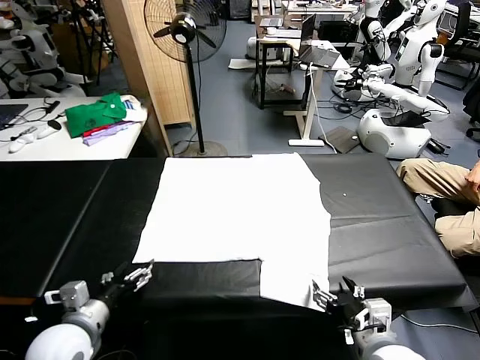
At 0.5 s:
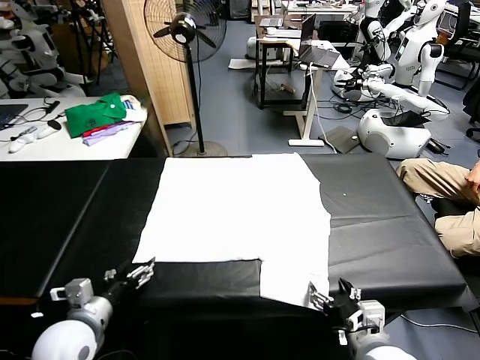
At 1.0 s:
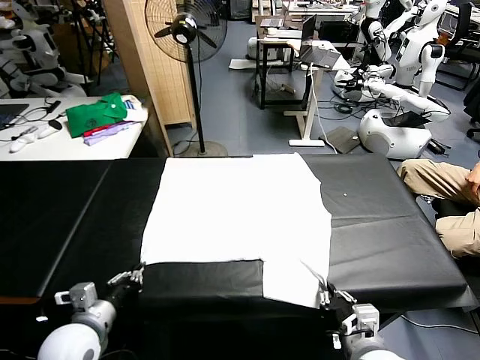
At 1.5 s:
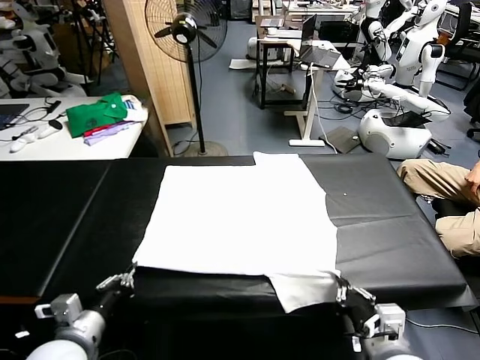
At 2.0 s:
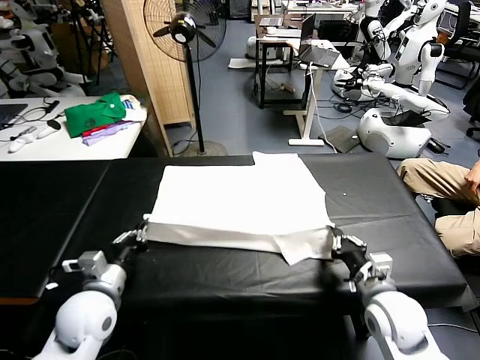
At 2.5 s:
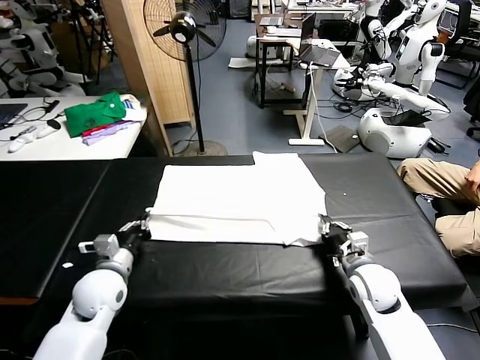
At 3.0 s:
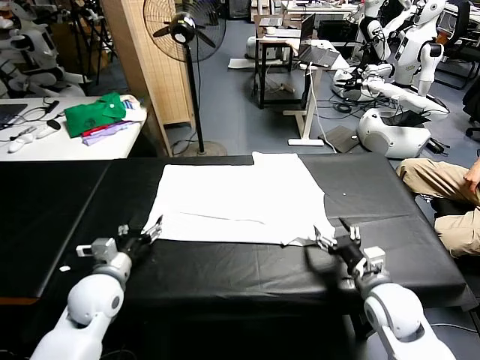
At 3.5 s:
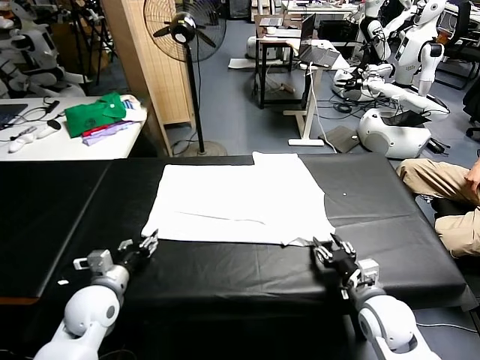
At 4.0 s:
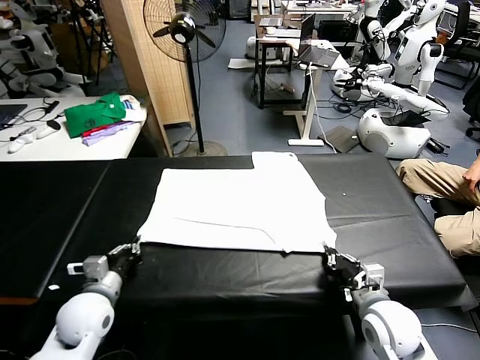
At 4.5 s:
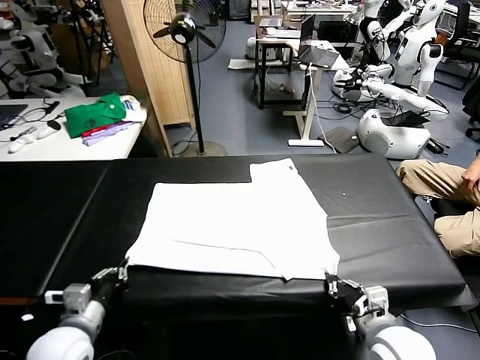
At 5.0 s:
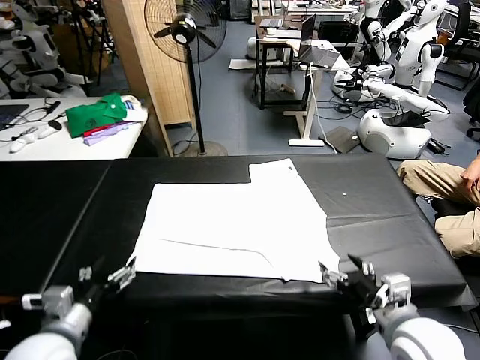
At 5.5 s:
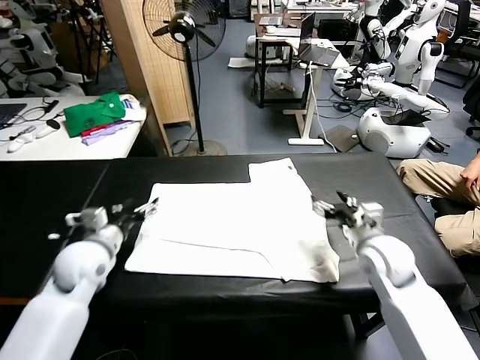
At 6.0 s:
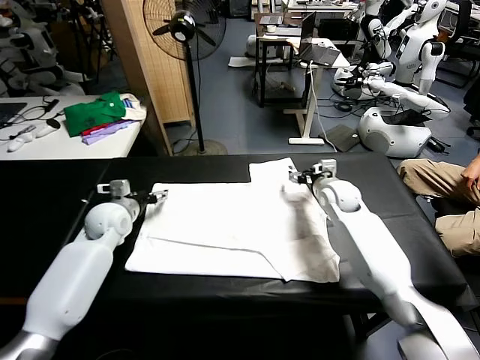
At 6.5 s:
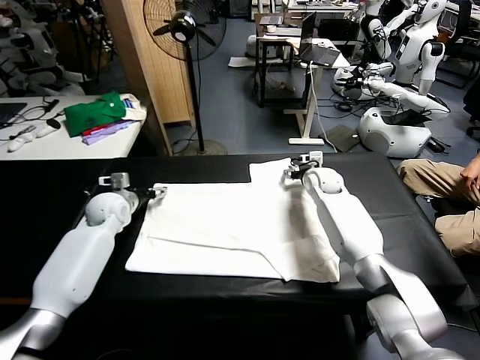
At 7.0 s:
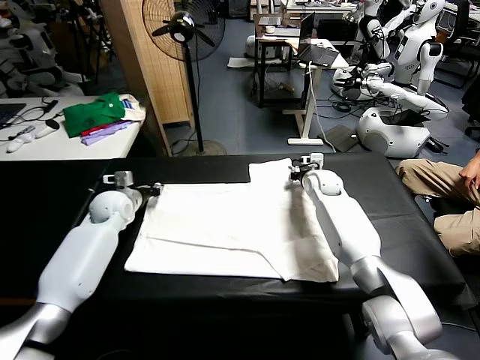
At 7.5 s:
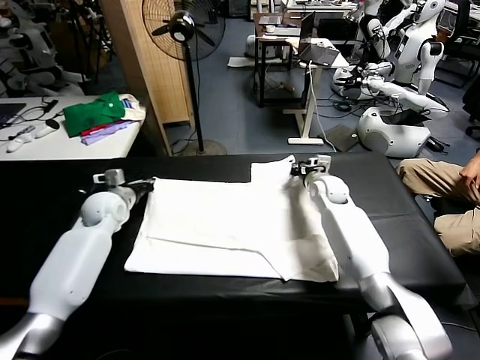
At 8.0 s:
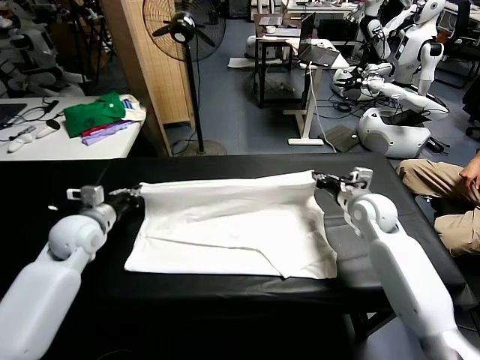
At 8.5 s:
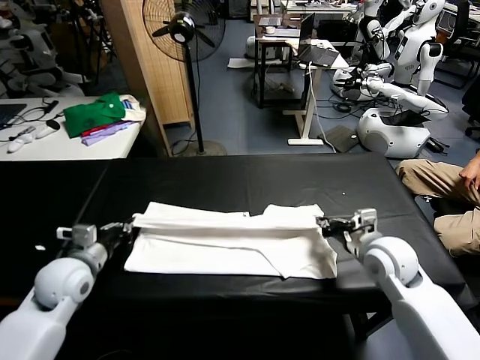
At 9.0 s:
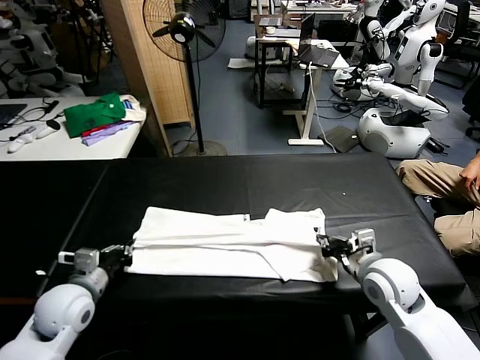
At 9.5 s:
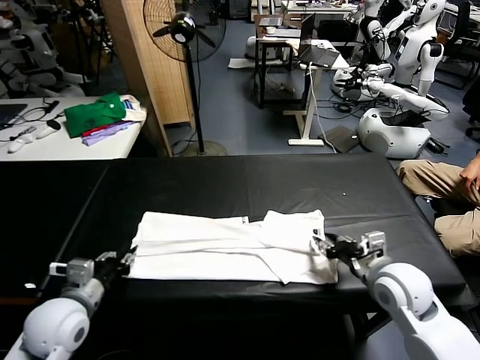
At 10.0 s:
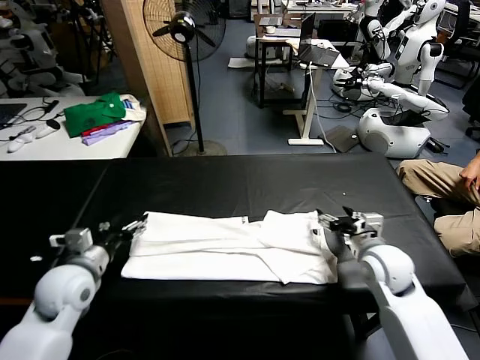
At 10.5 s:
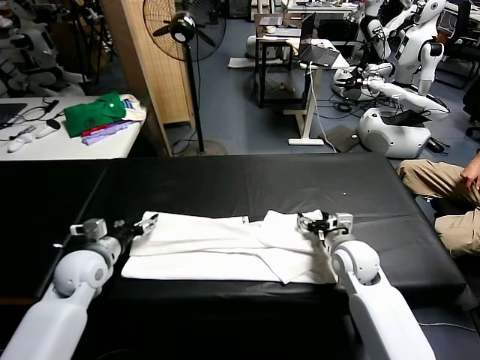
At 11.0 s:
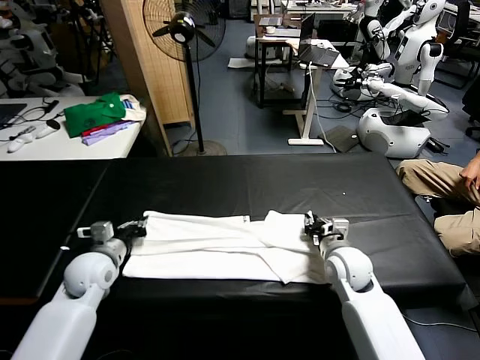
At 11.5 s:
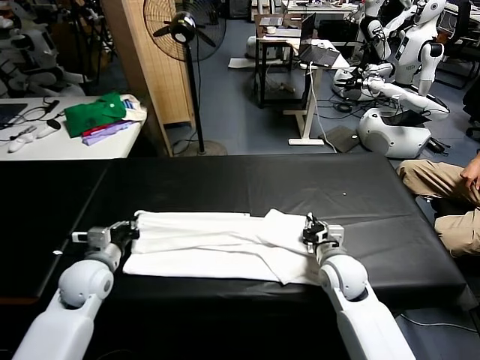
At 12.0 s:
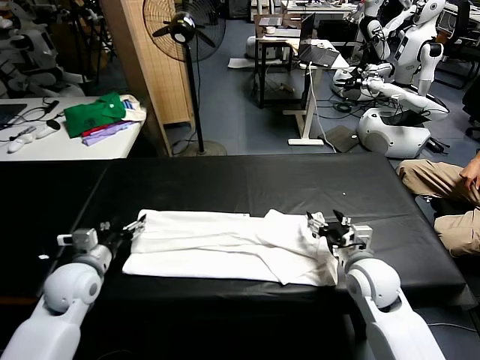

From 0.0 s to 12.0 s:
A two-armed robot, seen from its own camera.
Task of the whole recording: fold and organize the clothes.
Step, from 0.0 s to 1.0 s: use both grippers simultaneously to clamp the lower edge of the clothing fabric.
Step, from 1.5 s to 2.5 s: use both grippers to drag the lower edge of the fabric forward and fold it over the upper edge.
Step, from 3.0 s to 4.5 s: Drag the clothes downward with both gripper.
Step, from 5.0 s to 7.0 s: use both grippers simultaneously to clamp the upper edge of the clothing fabric.
Step, from 7.5 s to 9.0 s: use both grippers to drag the upper edge of the fabric backward and fold it over the lower edge.
From 2.0 s to 4.0 s: The right gripper shifts some 10 cm backward, and opens and closes again, while the left gripper opens, then closes once more.
From 4.0 s to 6.0 s: The right gripper goes approximately 35 cm forward, and opens up. The left gripper travels forward by roughly 20 cm, and opens.
From 6.0 s to 8.0 s: The right gripper moves backward and to the right, some 20 cm, and closes up. The left gripper is displaced backward by approximately 10 cm, and closes up.
From 8.0 s to 10.0 s: The right gripper is displaced backward by some 5 cm, and opens its fingers, while the left gripper heads backward, covering some 10 cm, and opens up.
From 10.0 s to 12.0 s: The left gripper closes and opens again. Meanwhile the right gripper travels backward by roughly 5 cm, and closes and opens again.

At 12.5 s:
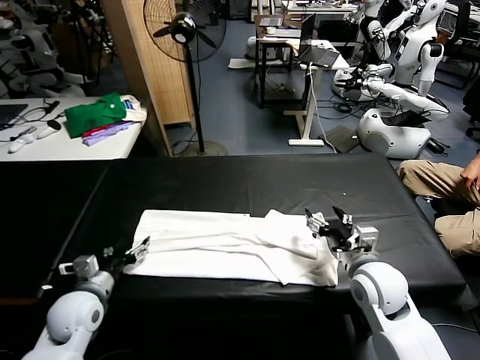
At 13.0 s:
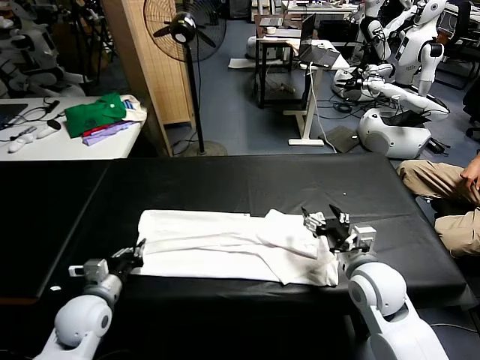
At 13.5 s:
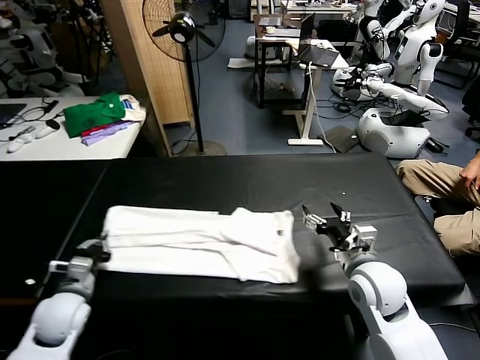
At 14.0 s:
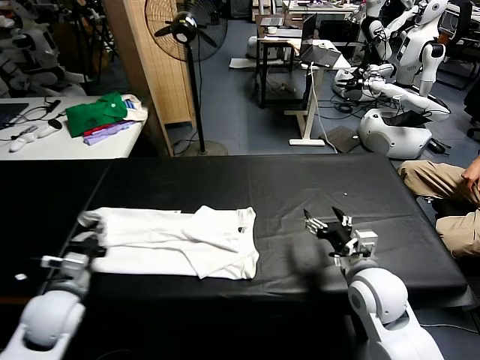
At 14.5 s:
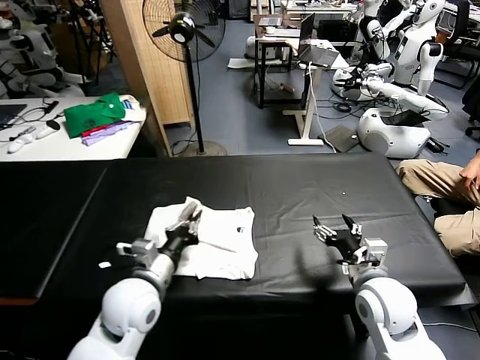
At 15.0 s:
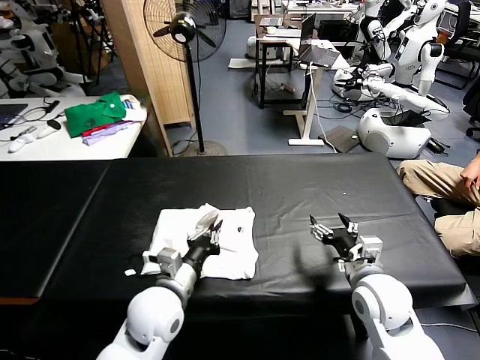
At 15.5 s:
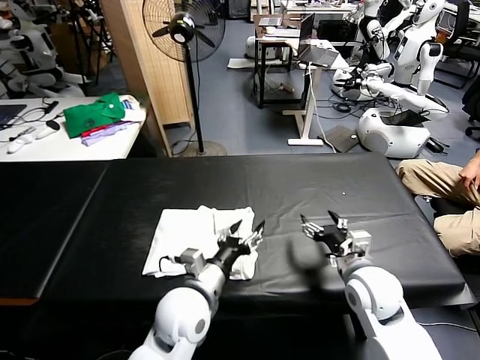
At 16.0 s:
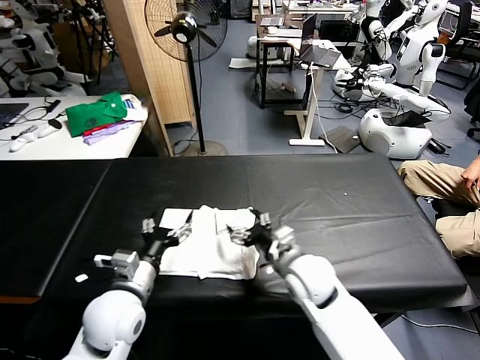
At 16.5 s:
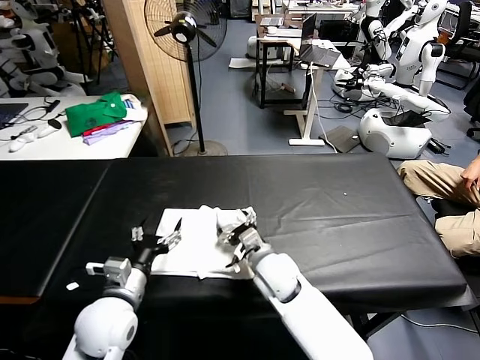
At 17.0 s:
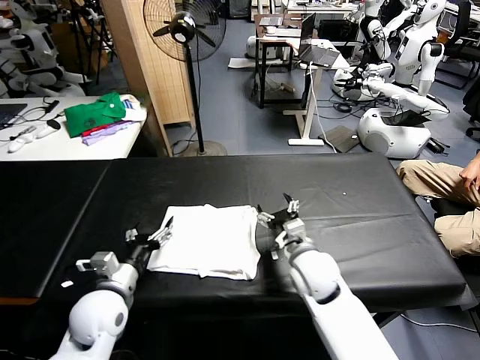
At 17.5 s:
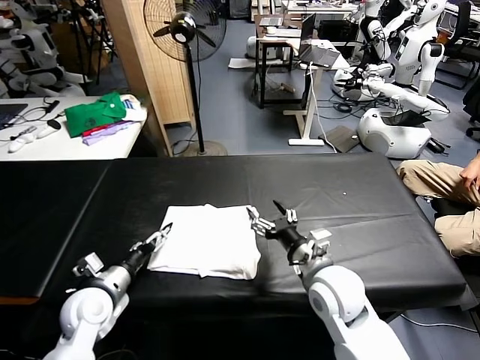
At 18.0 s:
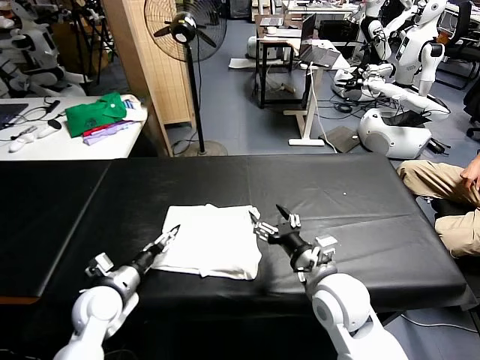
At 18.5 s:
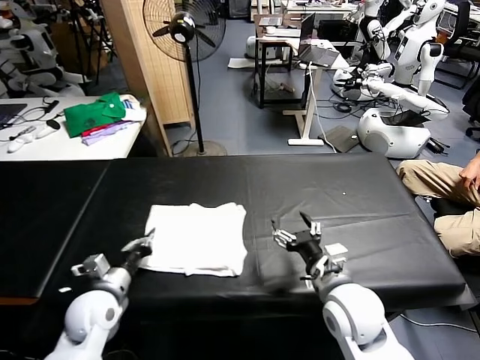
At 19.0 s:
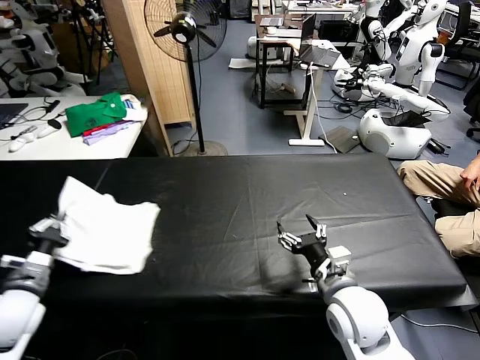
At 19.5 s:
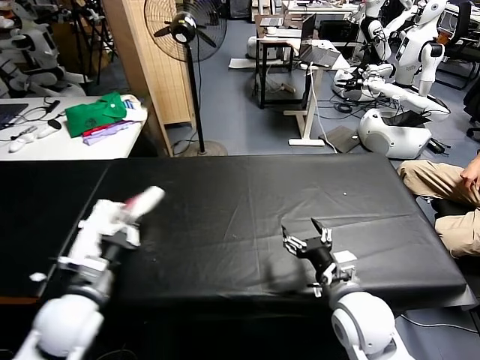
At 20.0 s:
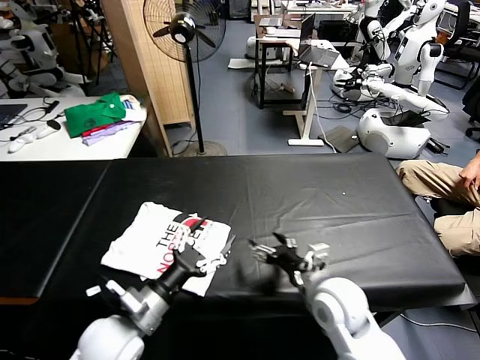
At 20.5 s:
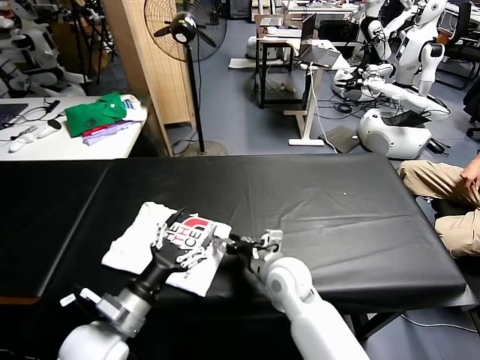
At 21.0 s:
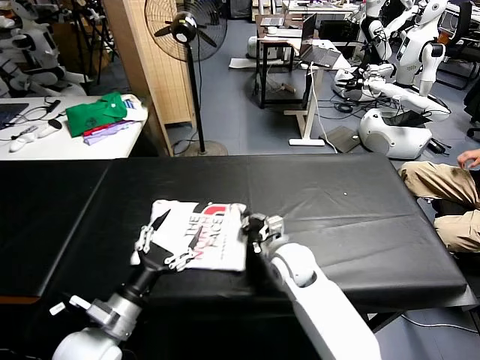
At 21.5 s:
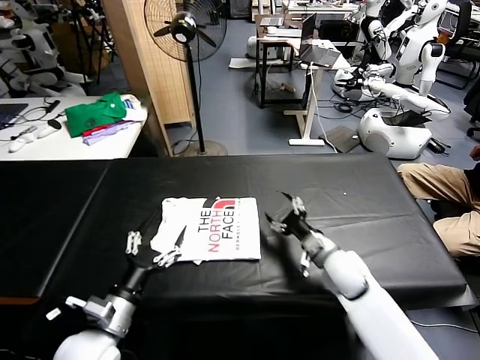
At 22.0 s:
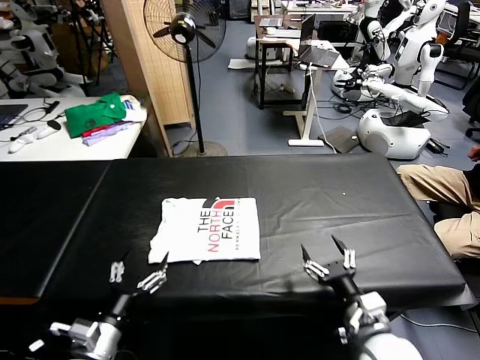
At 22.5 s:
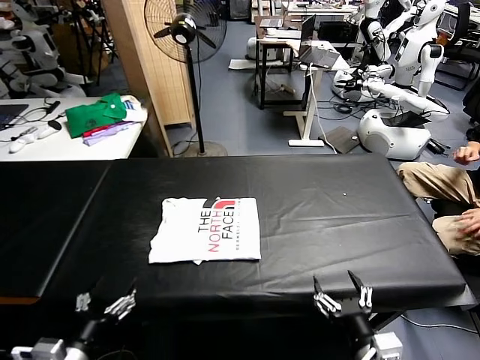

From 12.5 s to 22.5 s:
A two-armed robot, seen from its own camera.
Task of the whole recording: fold and organize the clothes.
Step, from 13.5 s to 15.0 s: use the left gripper to drag the left edge of the fabric to the left and folds it over the right edge.
Step, from 15.5 s to 19.5 s: Flip the folded clothes over with left gripper.
Step, from 20.0 s to 21.0 s: Drag the clothes to the center of the table.
From 12.5 s to 14.5 s: The left gripper goes some 15 cm to the right and upward, and closes.
From 14.5 s to 16.5 s: The right gripper shifts approximately 20 cm to the left and forward; the left gripper goes to the right and returns, roughly 10 cm each way, and opens up.
From 16.5 s to 18.5 s: The left gripper goes roughly 10 cm to the left and downward, and closes its fingers. Meanwhile the right gripper moves to the right, backward and upward, some 15 cm.
From 18.5 s to 20.5 s: The left gripper is displaced backward, upward and to the right by approximately 15 cm, and opens up. Meanwhile the right gripper travels to the left, forward and downward by roughly 15 cm.
From 20.5 s to 22.5 s: The left gripper travels backward and to the left by some 10 cm. Meanwhile the right gripper moves backward and to the right, about 25 cm, and closes, then opens again.

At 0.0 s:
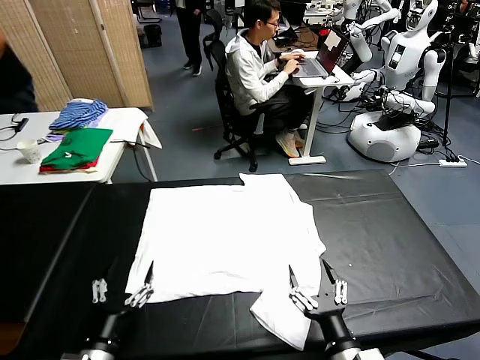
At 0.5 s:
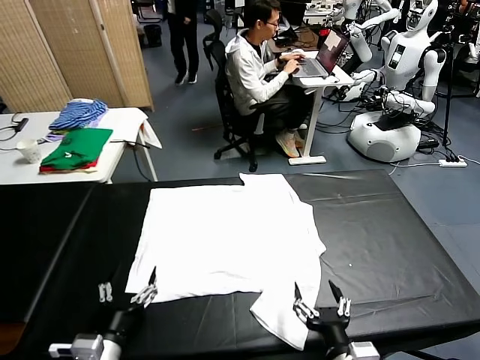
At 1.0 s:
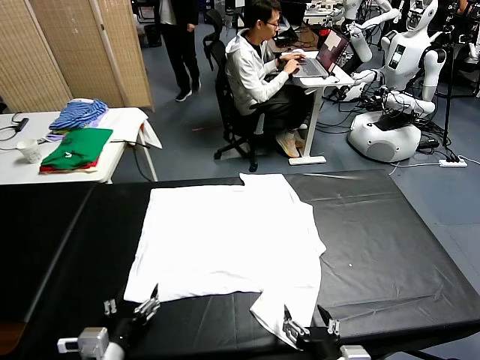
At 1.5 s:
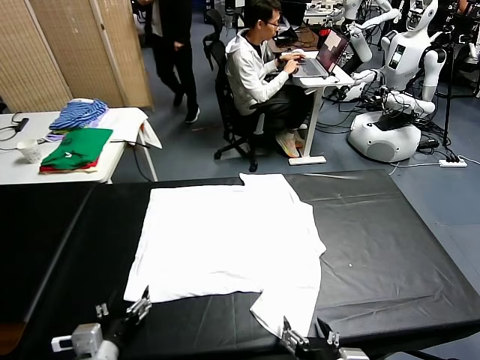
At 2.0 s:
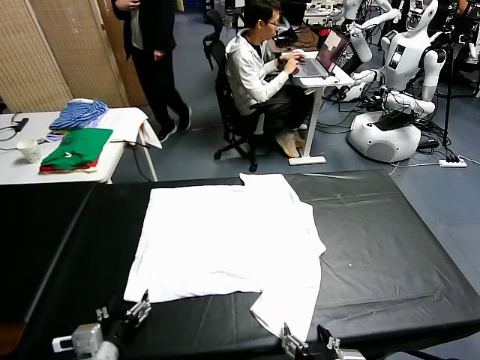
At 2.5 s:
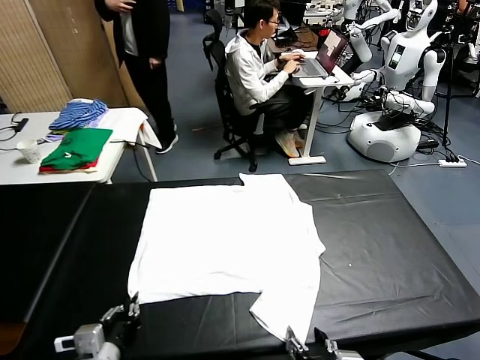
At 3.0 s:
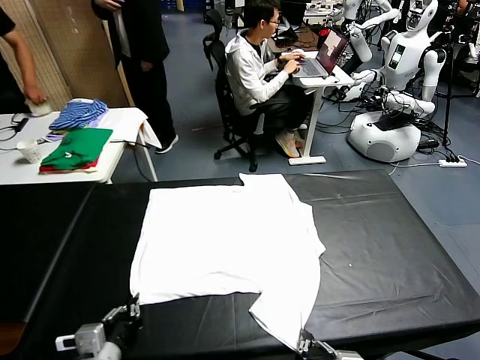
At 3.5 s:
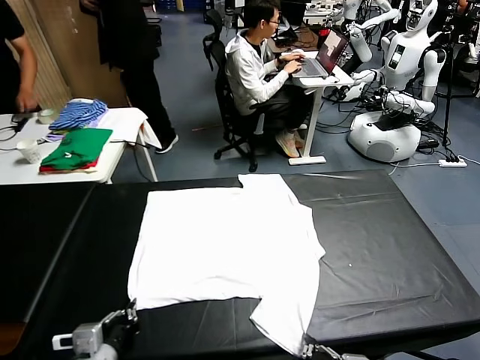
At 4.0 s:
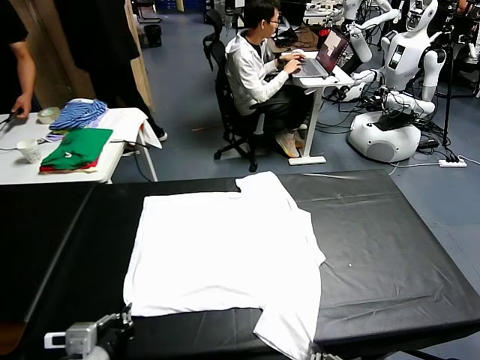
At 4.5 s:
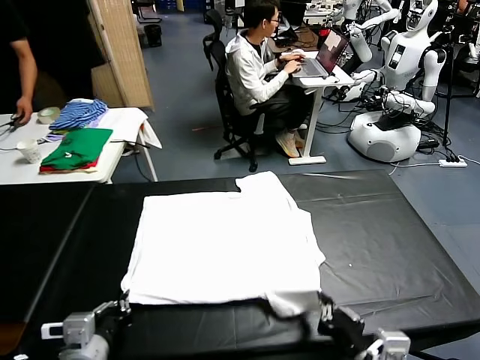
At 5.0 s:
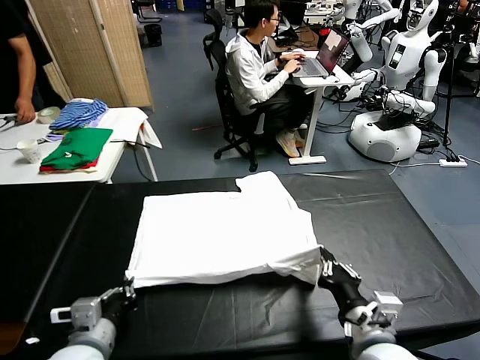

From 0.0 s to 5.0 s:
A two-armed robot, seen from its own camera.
Task of the whole recording: fold and organize the clothes.
Step, from 0.0 s to 4.0 s: use both grippers simultaneously to clamp the lower edge of the clothing fabric.
From 2.5 s to 5.0 s: The two grippers go roughly 15 cm forward.
